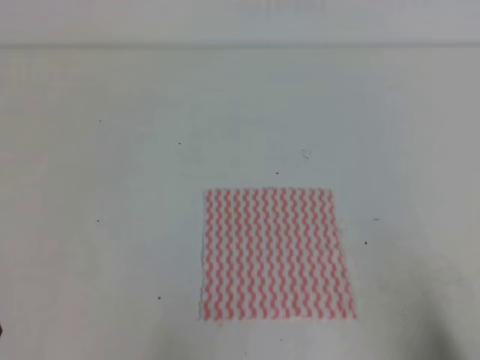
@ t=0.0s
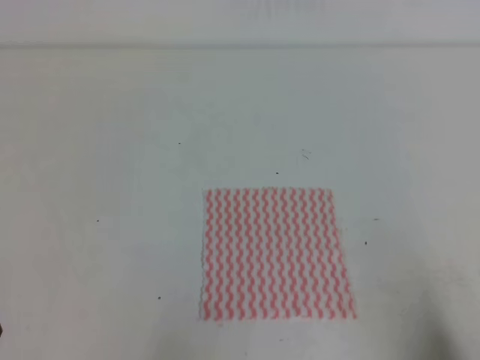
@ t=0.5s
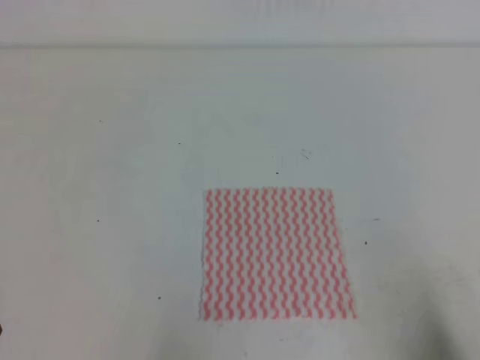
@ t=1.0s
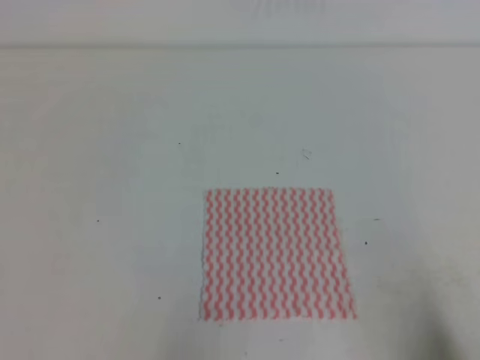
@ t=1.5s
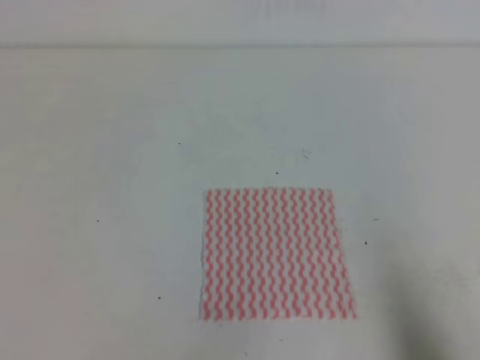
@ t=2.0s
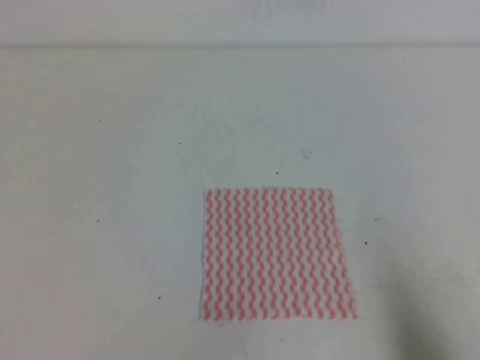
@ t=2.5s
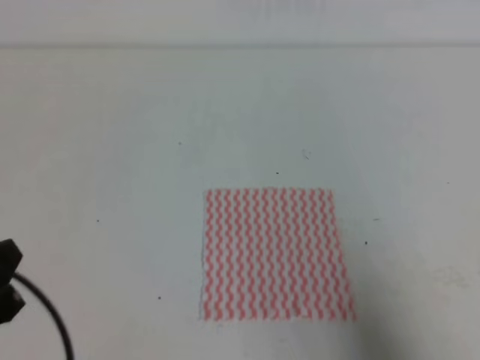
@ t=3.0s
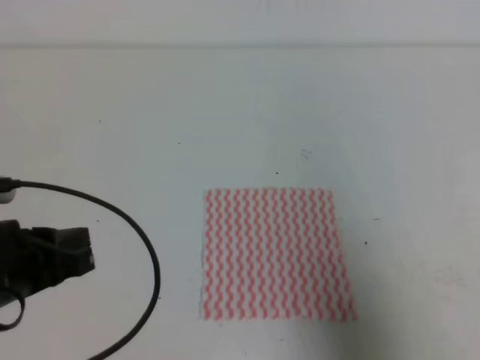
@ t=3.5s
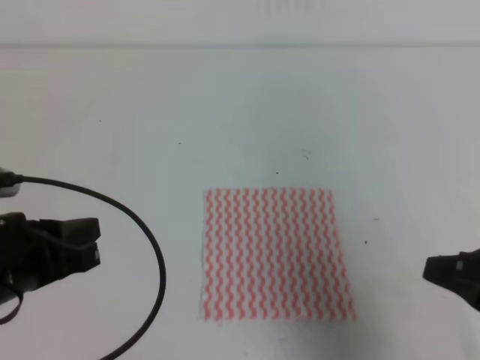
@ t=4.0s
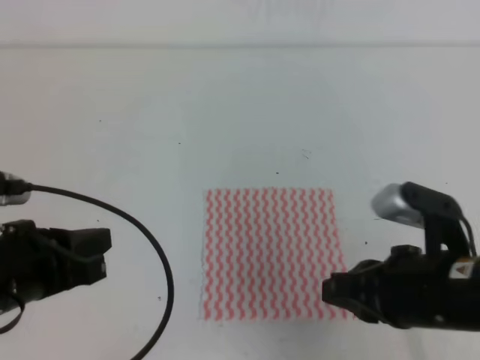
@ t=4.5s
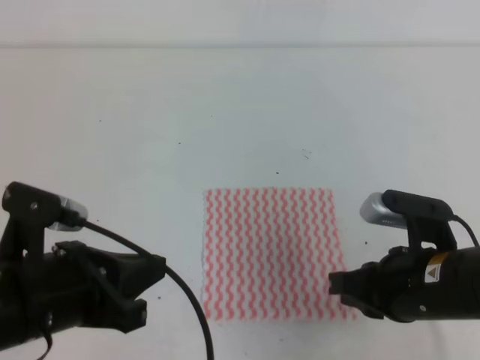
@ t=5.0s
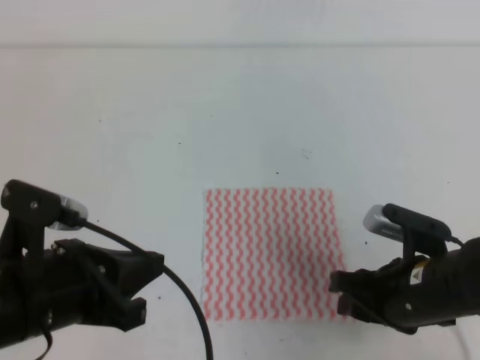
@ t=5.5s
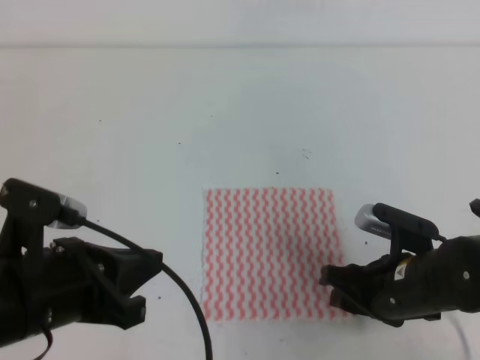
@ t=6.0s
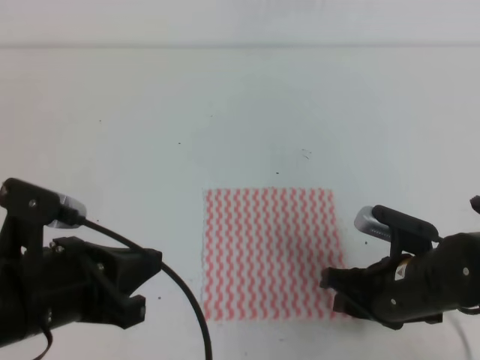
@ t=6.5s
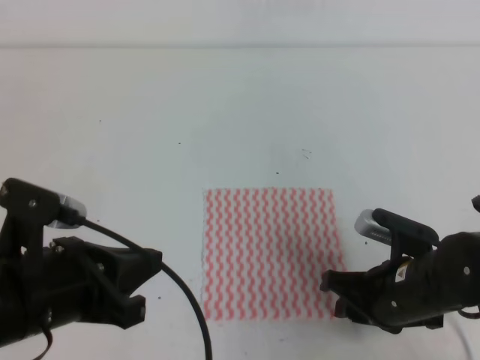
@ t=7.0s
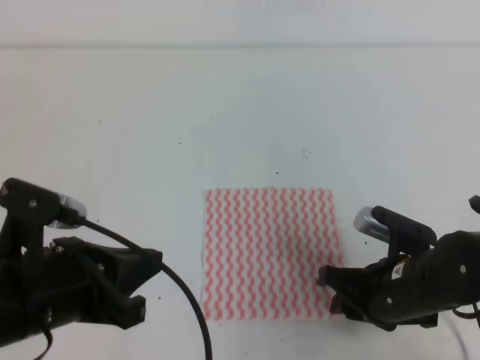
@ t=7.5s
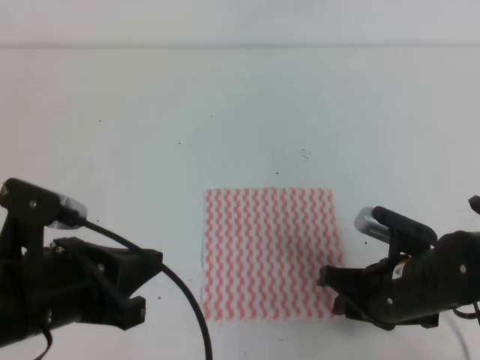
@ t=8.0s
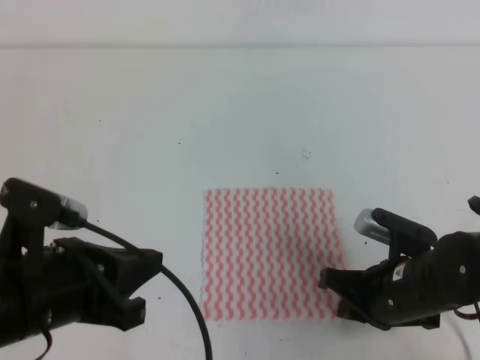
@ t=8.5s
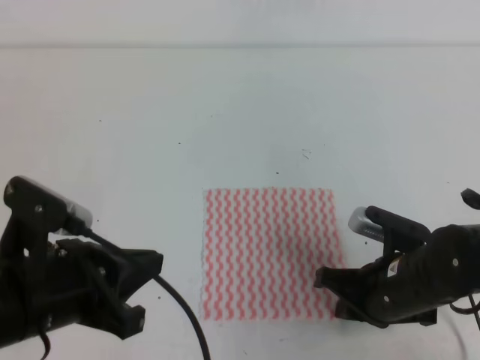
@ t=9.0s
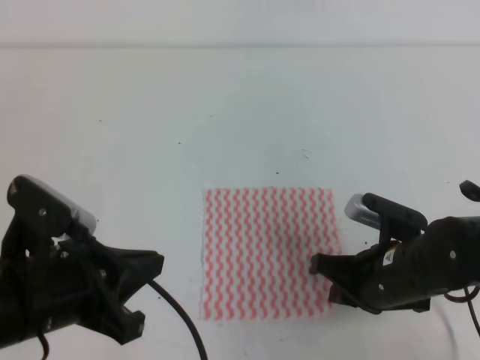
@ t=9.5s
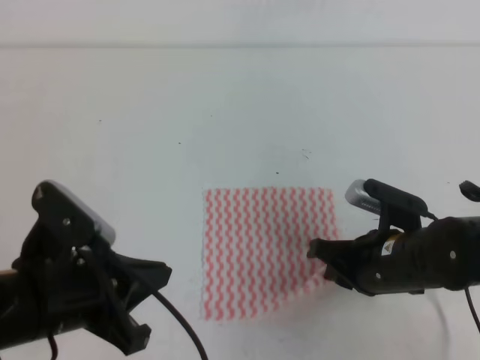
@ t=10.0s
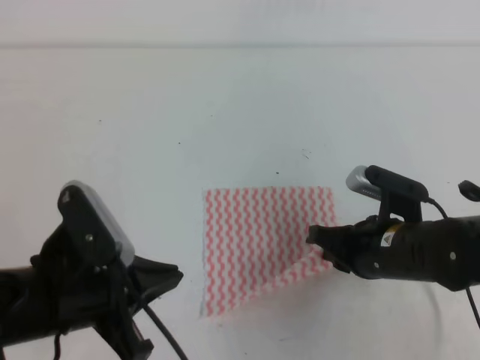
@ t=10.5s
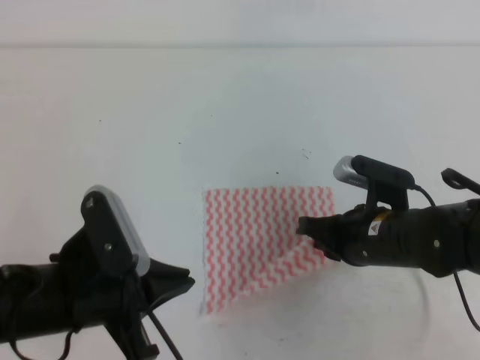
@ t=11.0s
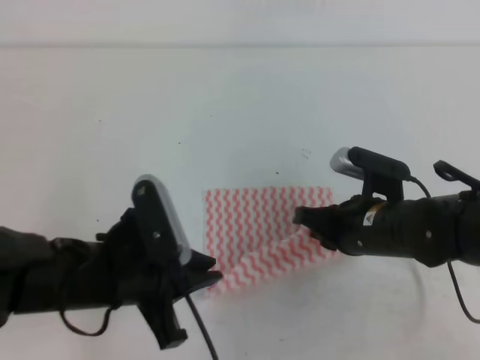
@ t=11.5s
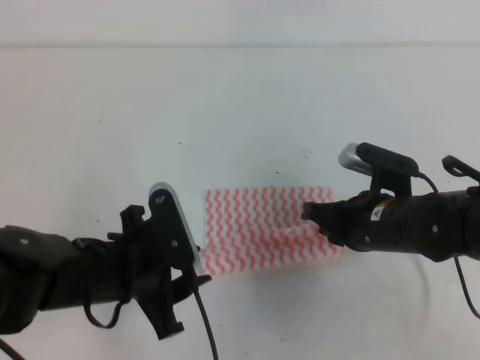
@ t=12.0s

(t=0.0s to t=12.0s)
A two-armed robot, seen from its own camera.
t=2.0s - t=4.0s: The right gripper is displaced forward, to the left and upward by about 10 cm; the left gripper heads forward and to the right, covering approximately 15 cm.
t=4.0s - t=6.0s: The right gripper heads downward, to the left and forward, covering about 15 cm, and opens.
t=6.0s - t=8.0s: The right gripper closes its fingers.
t=8.0s - t=10.0s: The right gripper closes.
t=10.0s - t=12.0s: The left gripper moves forward, about 5 cm, and opens its fingers.

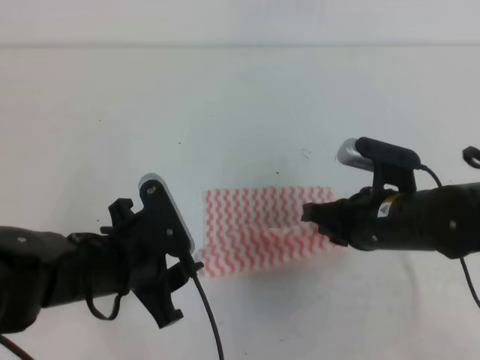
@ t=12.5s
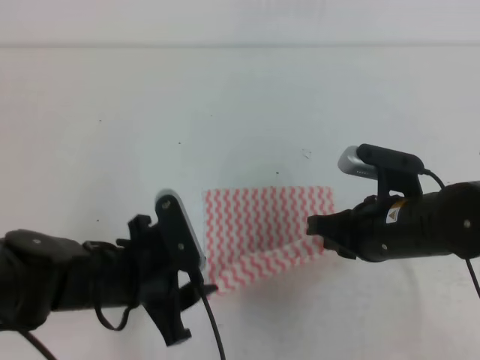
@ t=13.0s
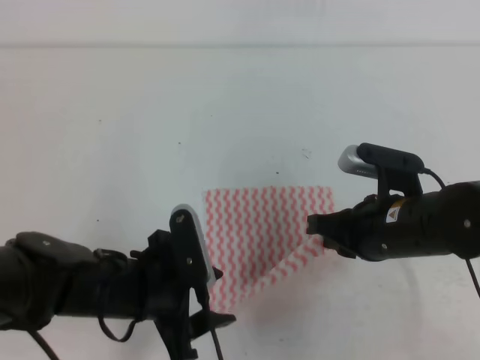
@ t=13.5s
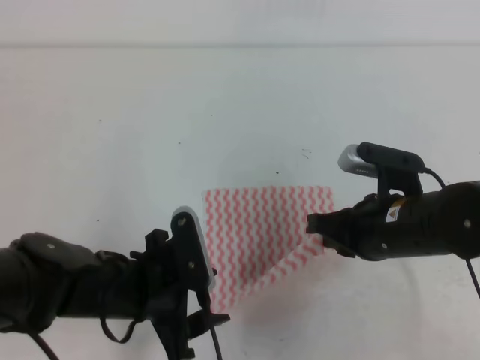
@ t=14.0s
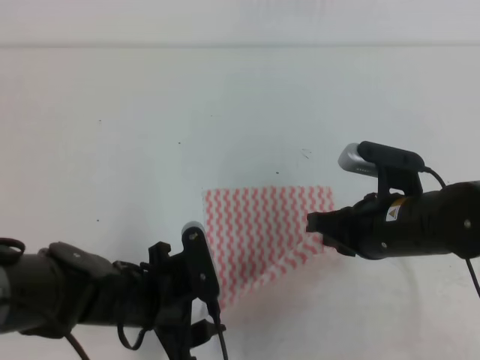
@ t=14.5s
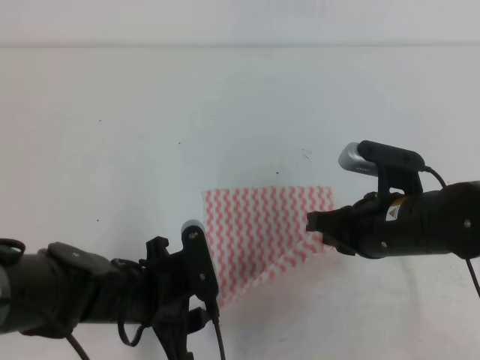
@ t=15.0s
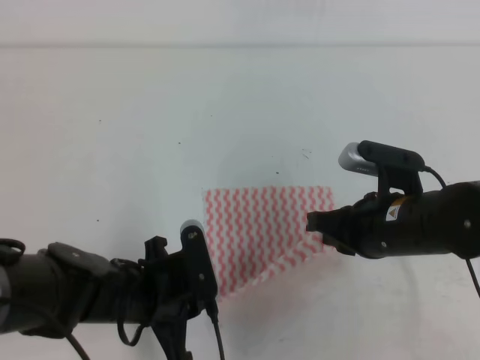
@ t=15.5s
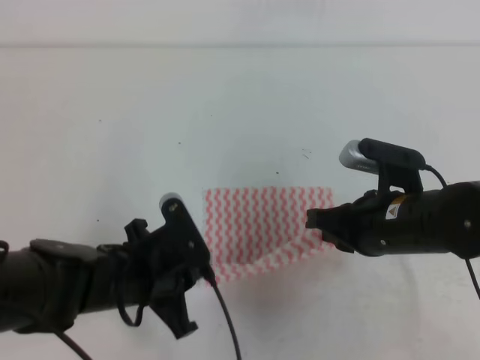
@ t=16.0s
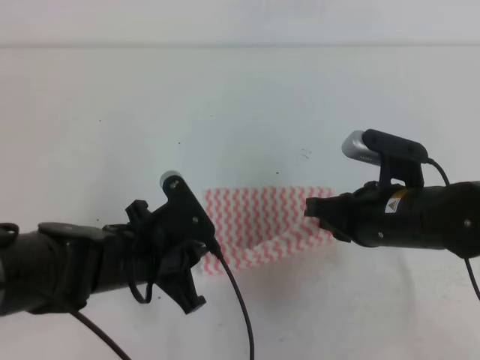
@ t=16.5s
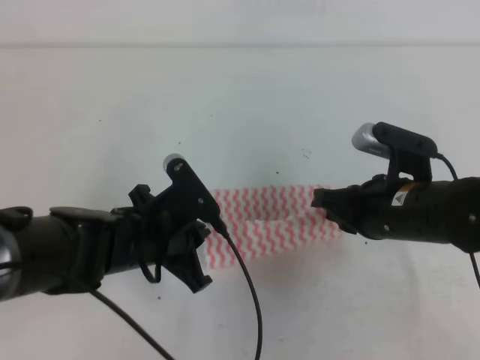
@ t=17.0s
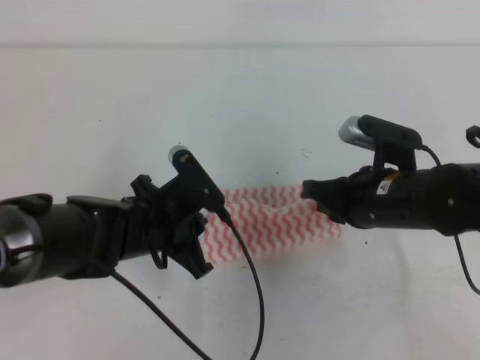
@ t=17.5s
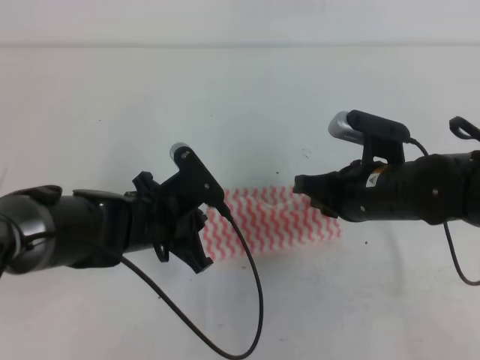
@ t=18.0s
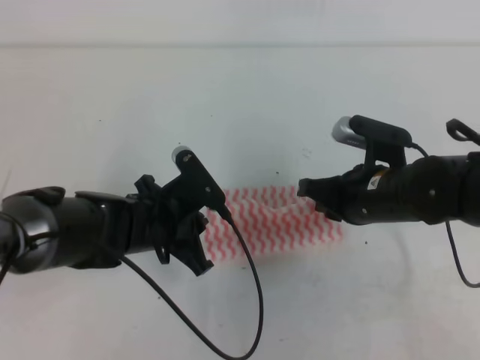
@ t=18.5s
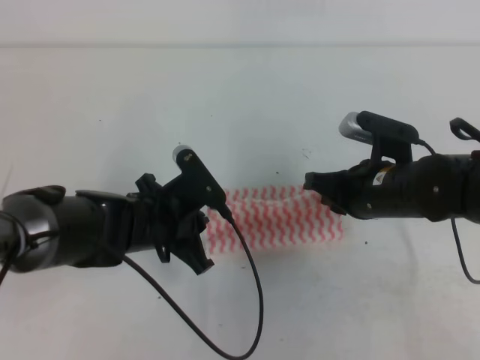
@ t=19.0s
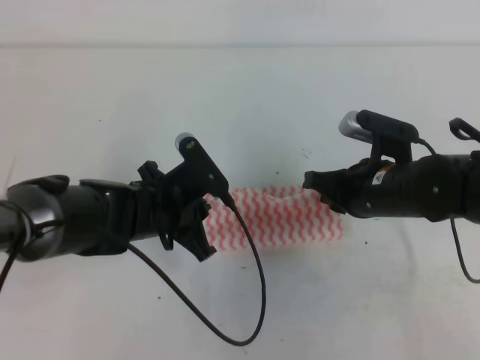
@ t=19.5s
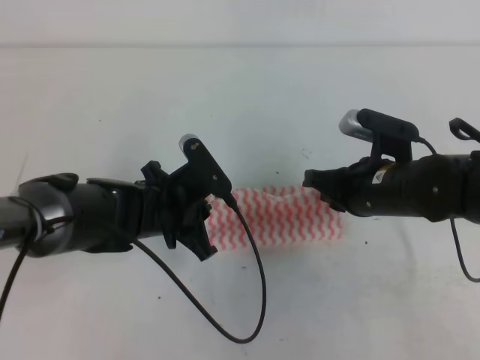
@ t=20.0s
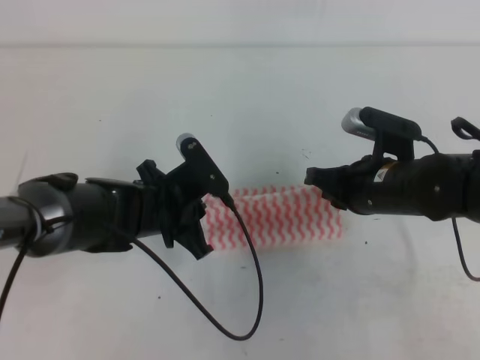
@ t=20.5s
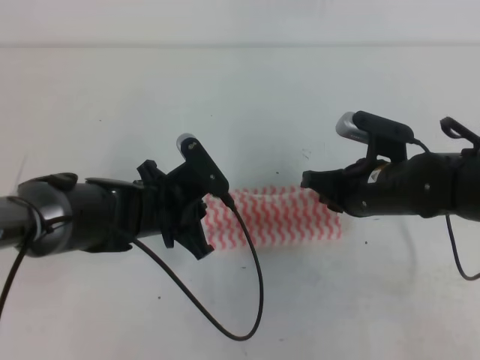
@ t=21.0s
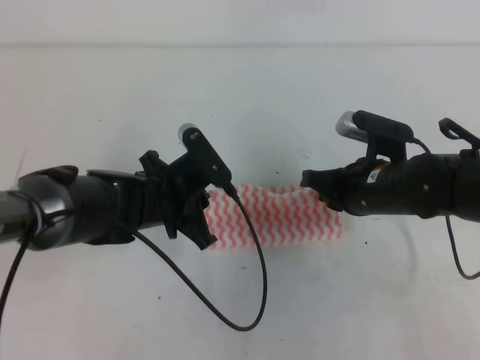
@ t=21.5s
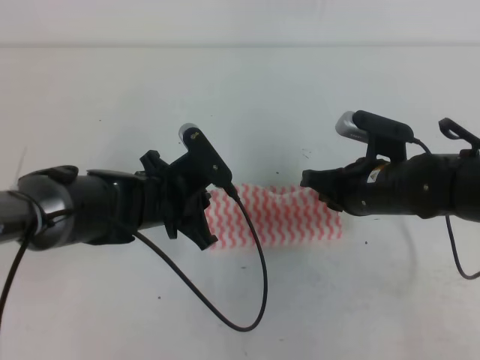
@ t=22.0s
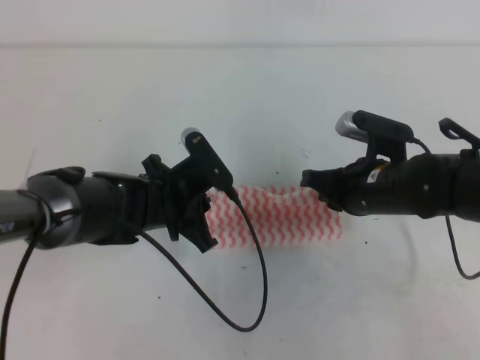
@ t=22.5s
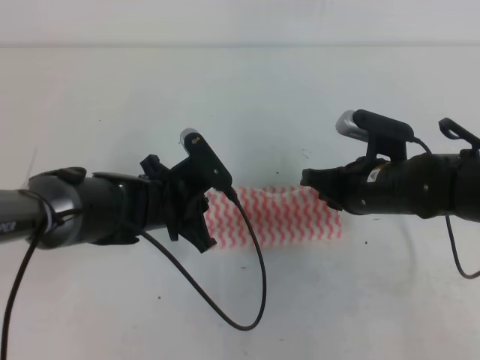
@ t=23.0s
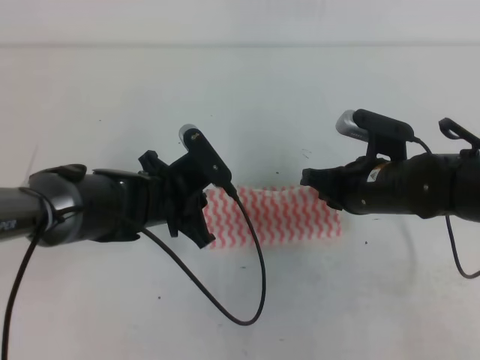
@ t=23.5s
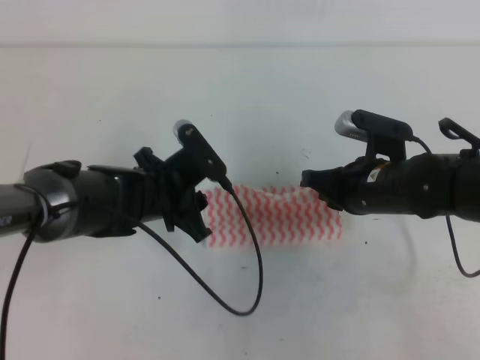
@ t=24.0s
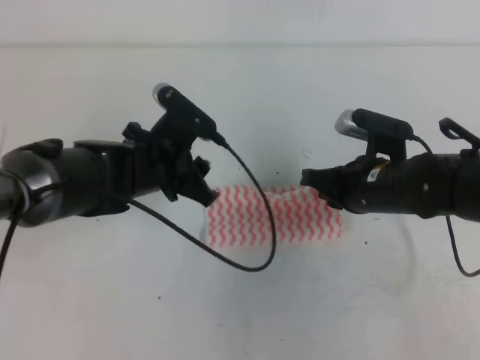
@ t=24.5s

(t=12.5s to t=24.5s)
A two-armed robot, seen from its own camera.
Step, t=12.5s - t=18.5s: Fold the towel upwards with the both gripper.
Step, t=19.0s - t=21.5s: Tidy up the towels.
t=12.5s - t=14.5s: The grippers move only a little.
t=14.5s - t=16.5s: The left gripper closes up.
t=16.5s - t=18.5s: The left gripper heads forward, covering roughly 5 cm.
t=18.5s - t=20.5s: The grippers make only small movements.
t=20.5s - t=22.5s: The two grippers keep their place.
t=22.5s - t=24.5s: The left gripper opens its fingers.

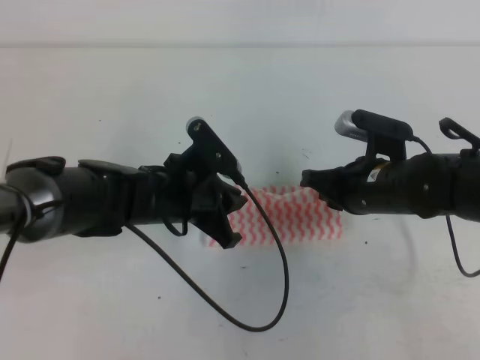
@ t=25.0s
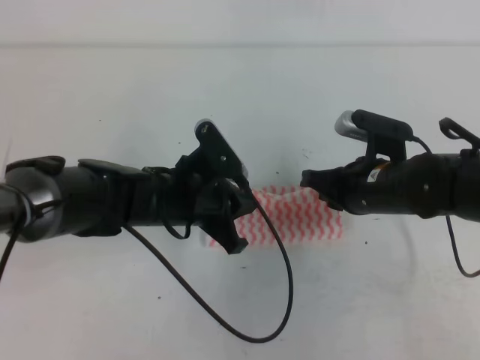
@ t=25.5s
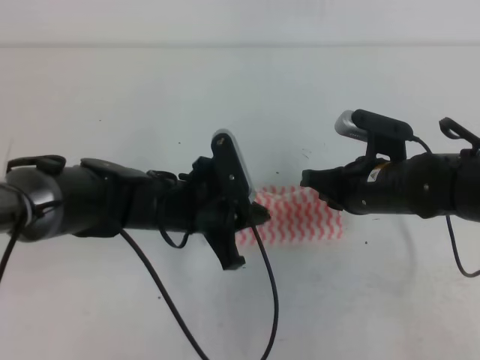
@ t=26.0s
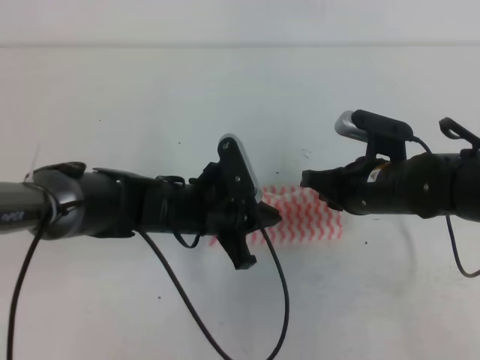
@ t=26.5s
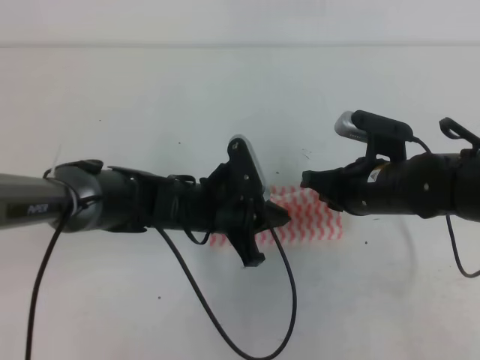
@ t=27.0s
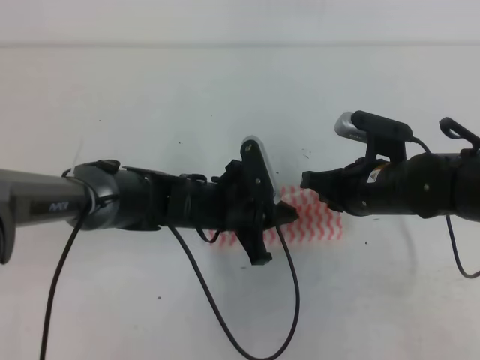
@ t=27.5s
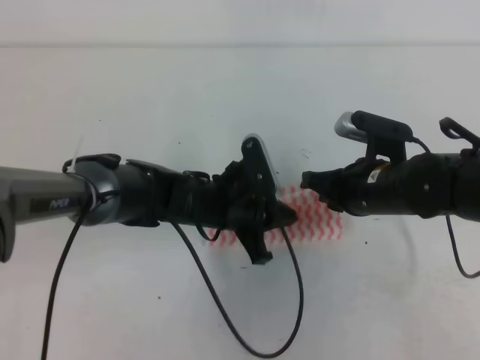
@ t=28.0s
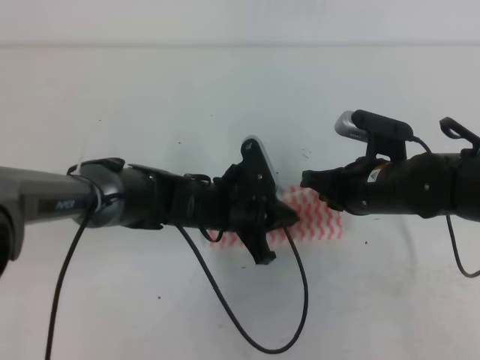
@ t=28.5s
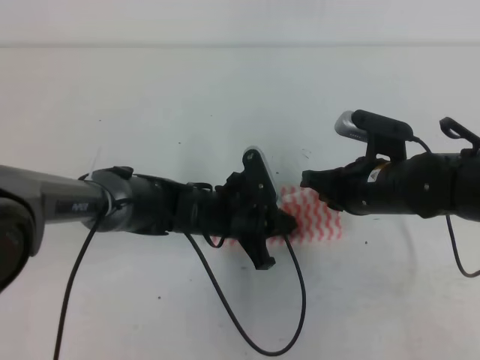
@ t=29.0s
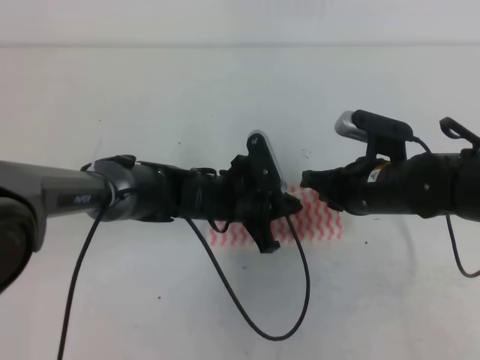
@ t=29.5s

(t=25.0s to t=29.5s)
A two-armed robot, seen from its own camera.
t=27.0s - t=29.5s: There are only small adjustments of the grippers.
